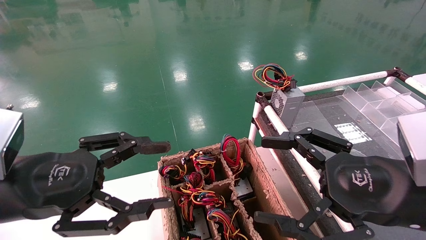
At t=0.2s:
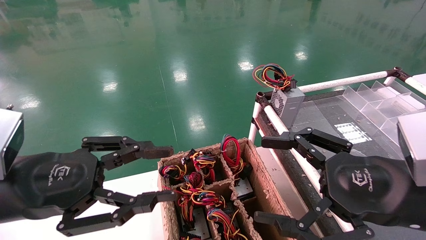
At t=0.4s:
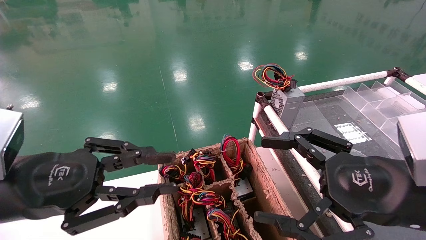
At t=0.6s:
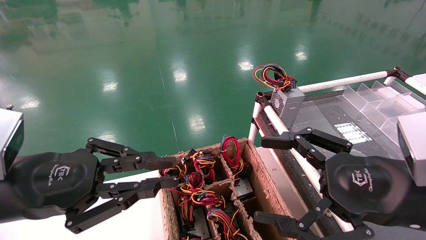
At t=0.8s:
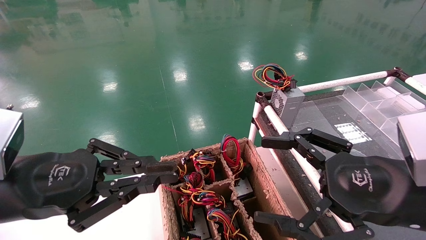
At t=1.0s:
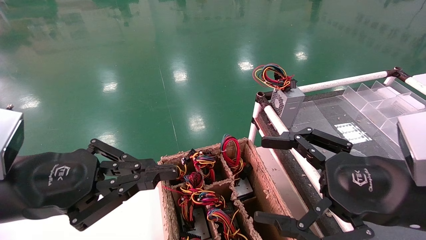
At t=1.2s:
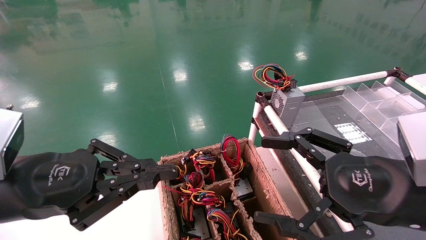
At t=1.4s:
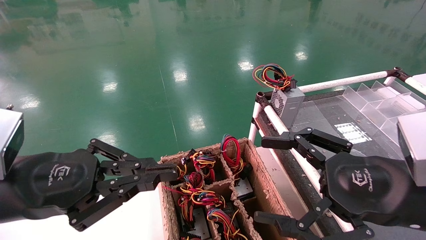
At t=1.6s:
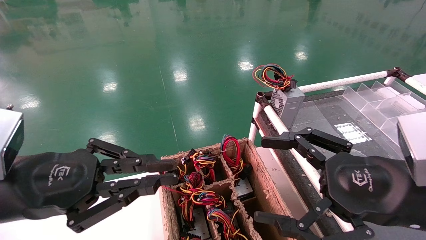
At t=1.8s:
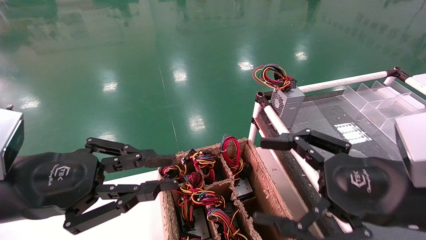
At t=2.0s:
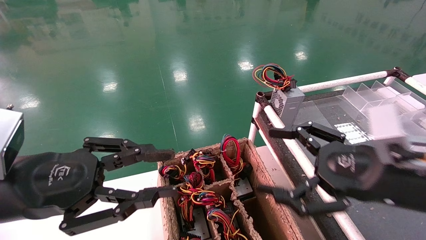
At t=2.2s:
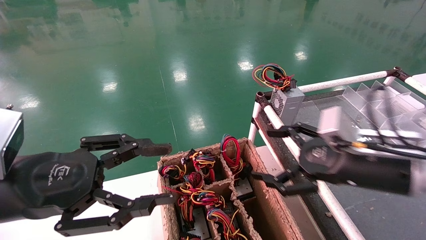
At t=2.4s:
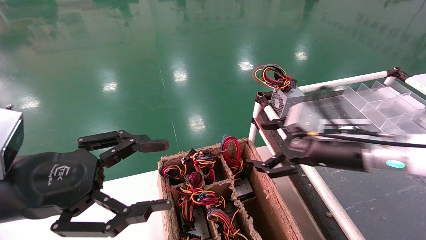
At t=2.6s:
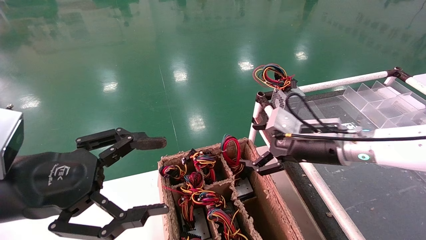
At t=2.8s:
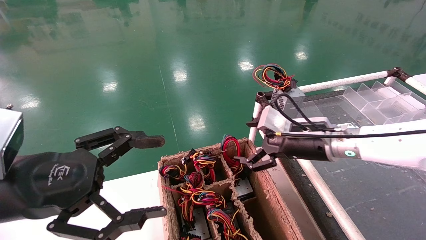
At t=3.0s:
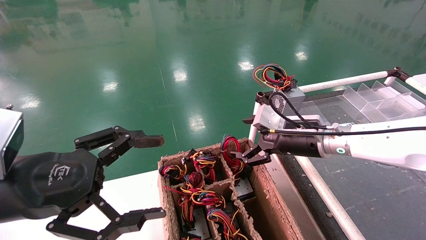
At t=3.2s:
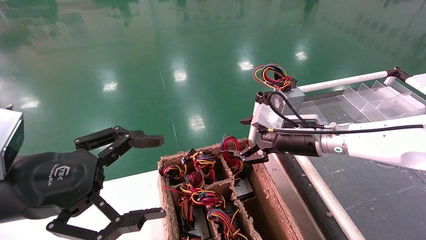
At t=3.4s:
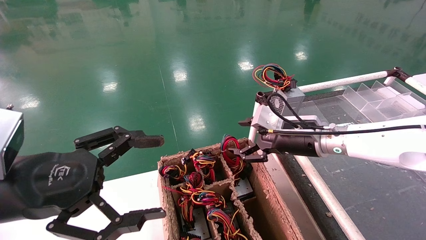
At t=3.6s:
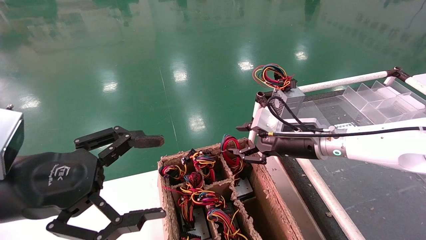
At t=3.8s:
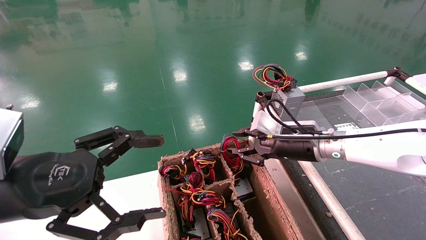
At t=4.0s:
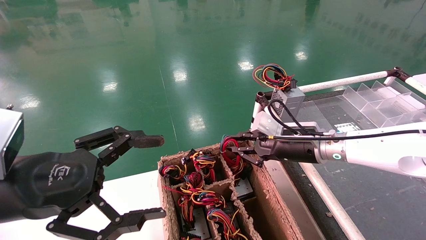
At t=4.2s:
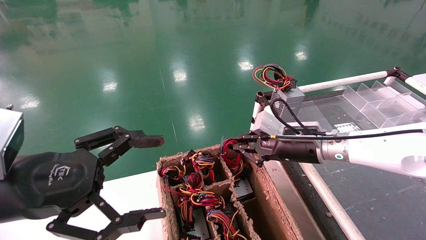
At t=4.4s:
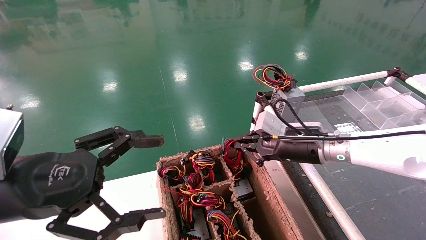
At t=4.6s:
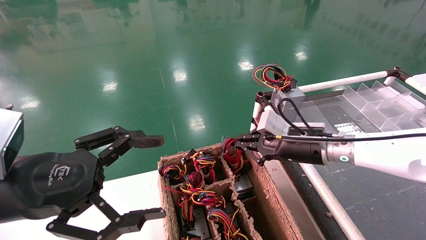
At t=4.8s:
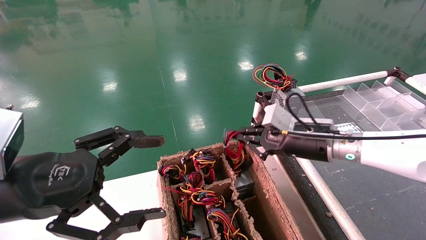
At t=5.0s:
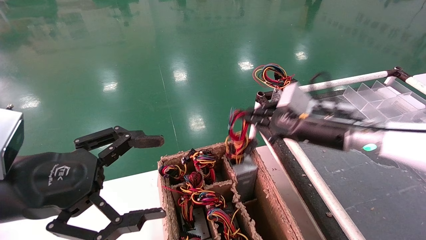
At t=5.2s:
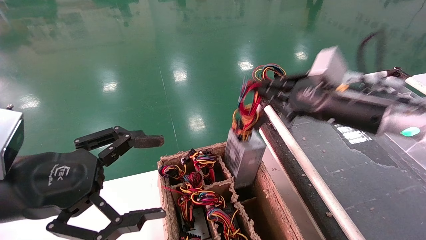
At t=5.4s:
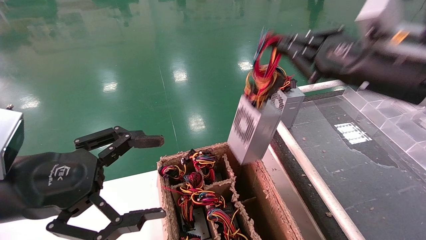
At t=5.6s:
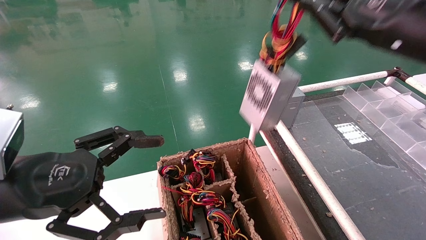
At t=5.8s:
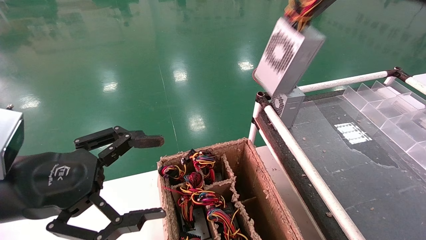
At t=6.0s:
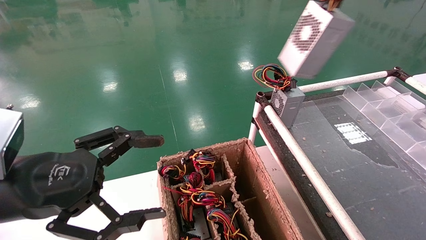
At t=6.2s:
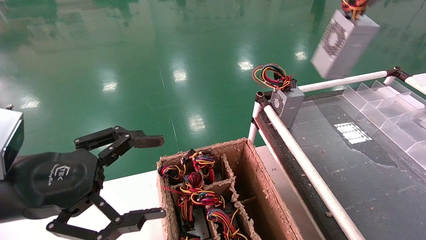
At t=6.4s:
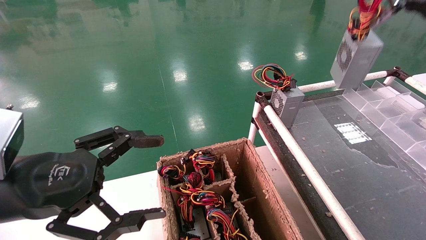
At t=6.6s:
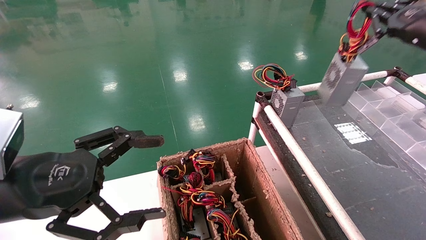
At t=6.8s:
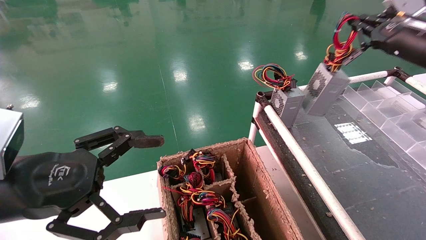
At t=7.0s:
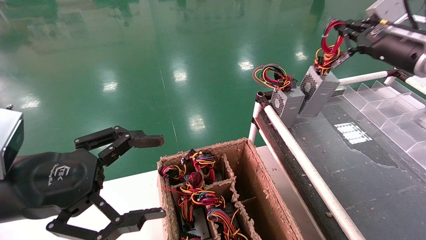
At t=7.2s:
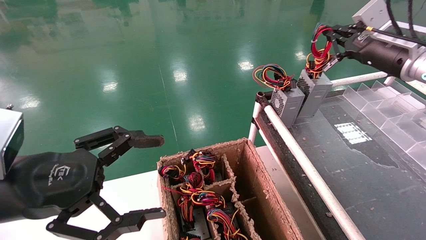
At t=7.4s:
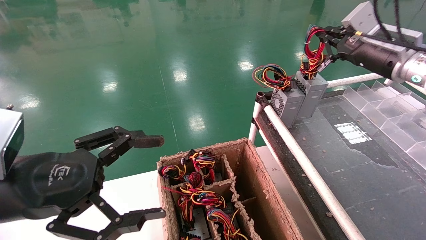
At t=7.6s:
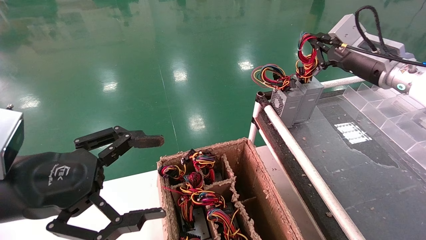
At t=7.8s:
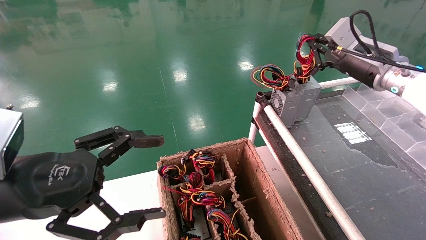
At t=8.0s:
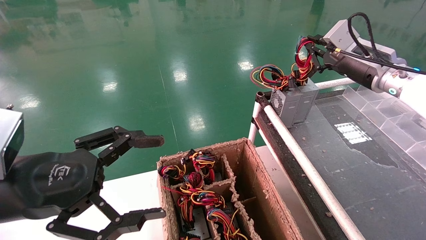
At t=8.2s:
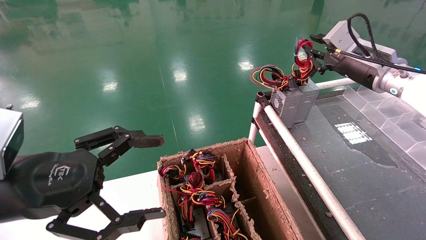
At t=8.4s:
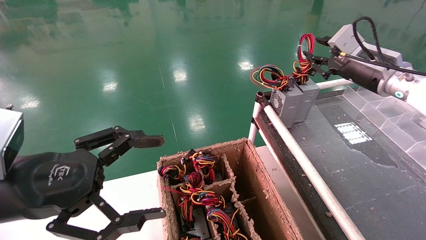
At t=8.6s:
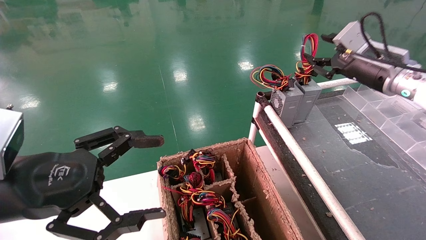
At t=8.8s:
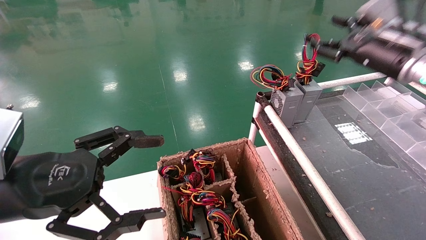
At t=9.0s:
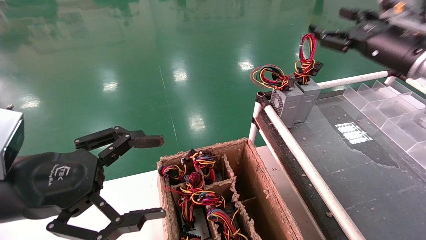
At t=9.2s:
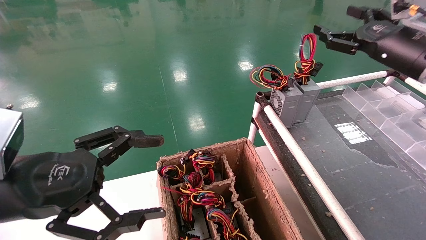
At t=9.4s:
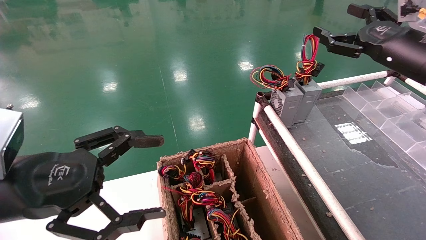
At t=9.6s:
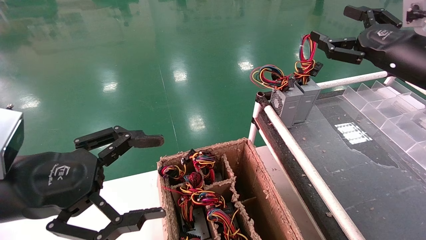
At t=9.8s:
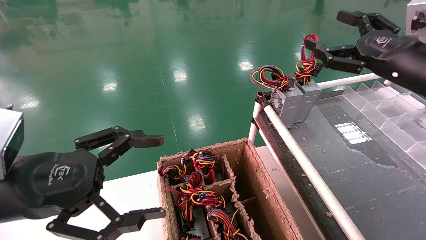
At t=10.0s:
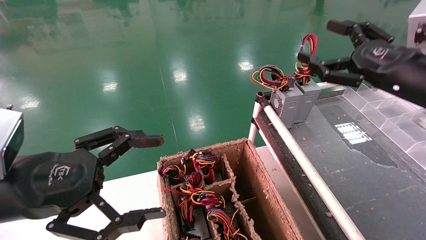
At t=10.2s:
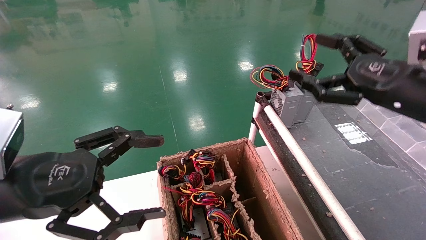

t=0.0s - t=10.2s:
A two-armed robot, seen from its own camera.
Step, t=1.0s - t=4.6s: Grab and lift the power supply from the large box.
Step, t=4.8s - t=8.0s: Place the power supply on the operating table.
t=0.0s - t=1.4s: The left gripper closes up.
t=1.4s - t=3.0s: The left gripper opens up. Meanwhile the right gripper heads forward, covering some 20 cm.
t=3.0s - t=4.4s: The right gripper closes up.
t=4.4s - t=5.8s: The right gripper goes some 30 cm upward, to the right and backward.
t=5.8s - t=7.2s: The right gripper moves forward and downward, about 15 cm.
t=7.2s - t=8.8s: The right gripper opens.
t=8.8s - t=10.2s: The right gripper goes approximately 10 cm backward, and opens.

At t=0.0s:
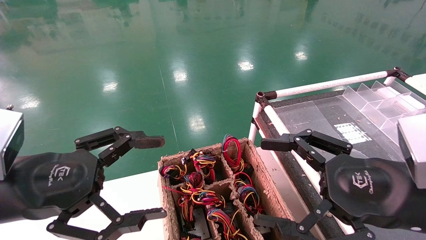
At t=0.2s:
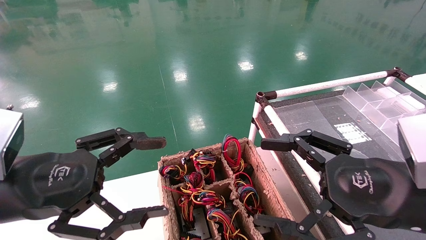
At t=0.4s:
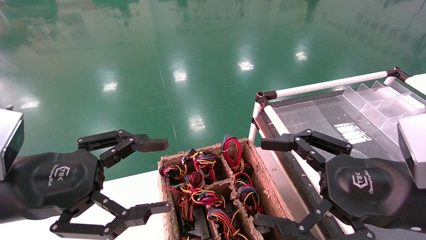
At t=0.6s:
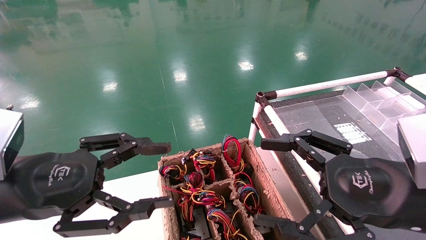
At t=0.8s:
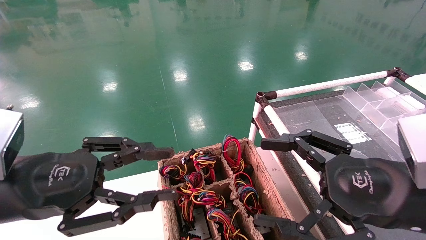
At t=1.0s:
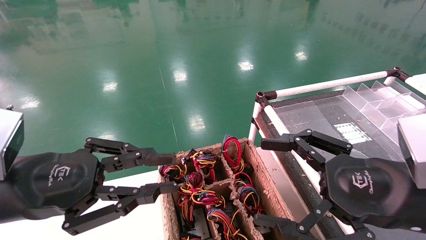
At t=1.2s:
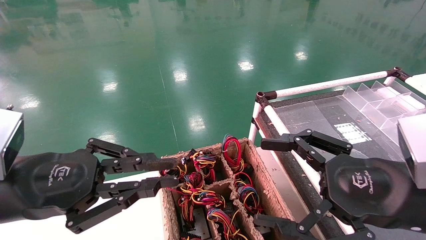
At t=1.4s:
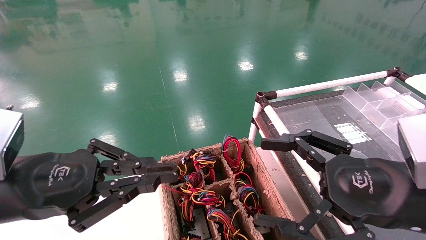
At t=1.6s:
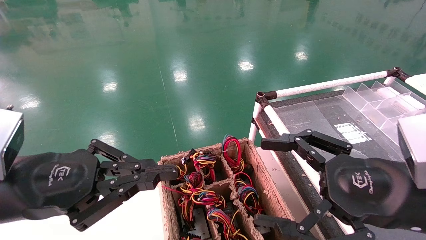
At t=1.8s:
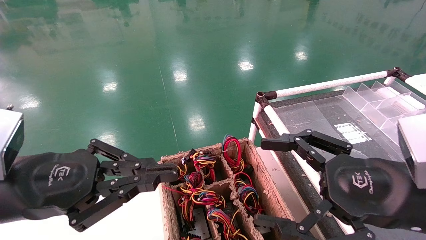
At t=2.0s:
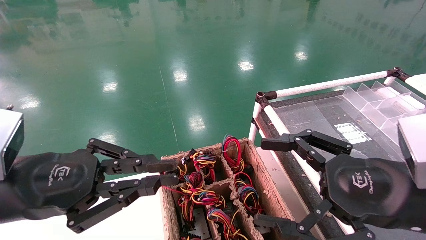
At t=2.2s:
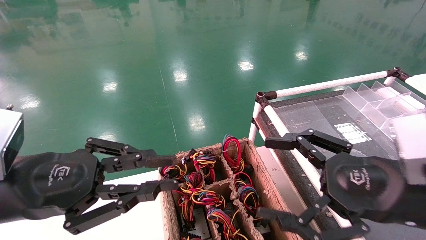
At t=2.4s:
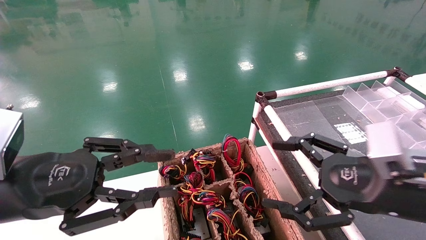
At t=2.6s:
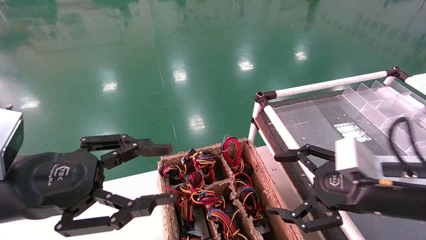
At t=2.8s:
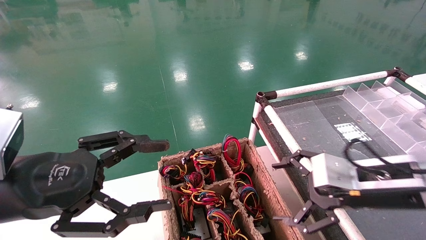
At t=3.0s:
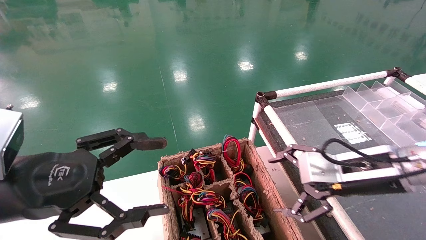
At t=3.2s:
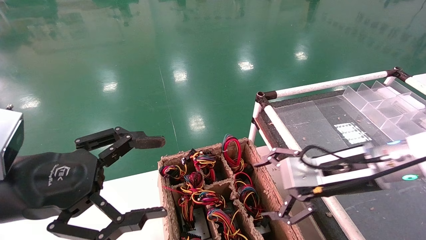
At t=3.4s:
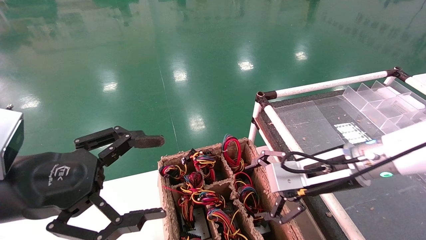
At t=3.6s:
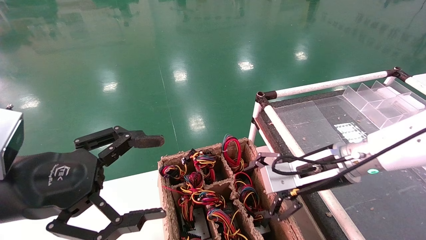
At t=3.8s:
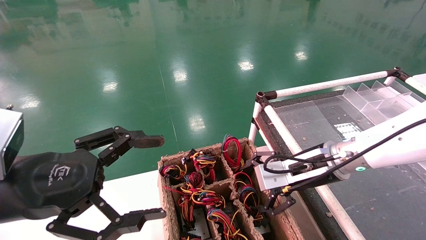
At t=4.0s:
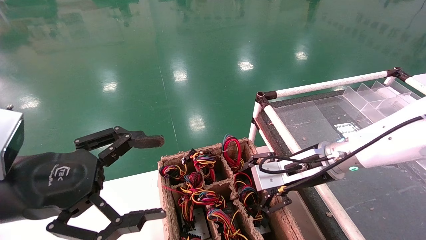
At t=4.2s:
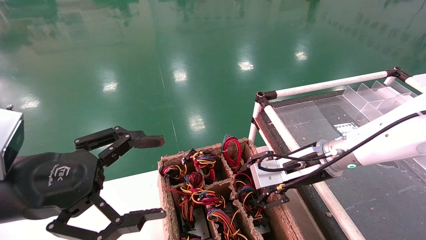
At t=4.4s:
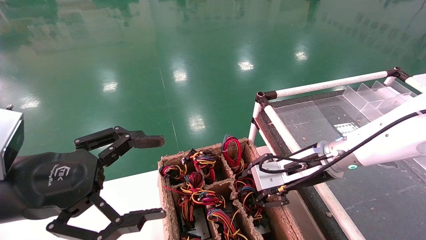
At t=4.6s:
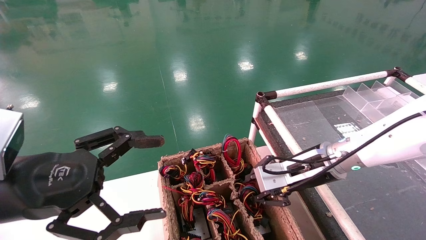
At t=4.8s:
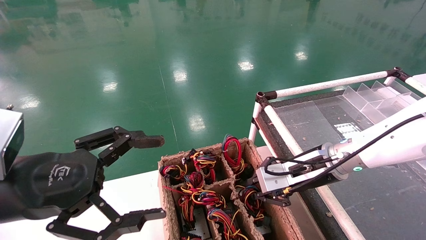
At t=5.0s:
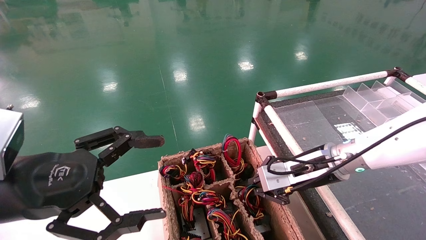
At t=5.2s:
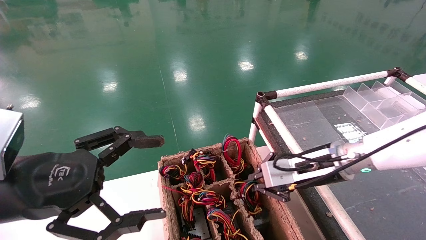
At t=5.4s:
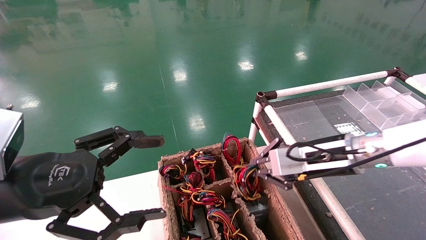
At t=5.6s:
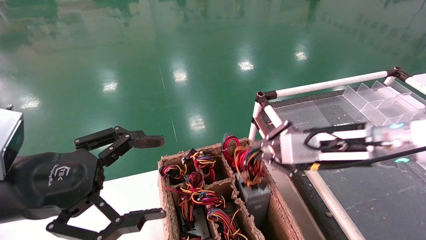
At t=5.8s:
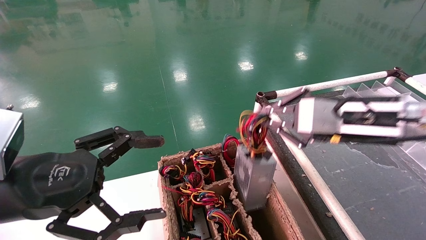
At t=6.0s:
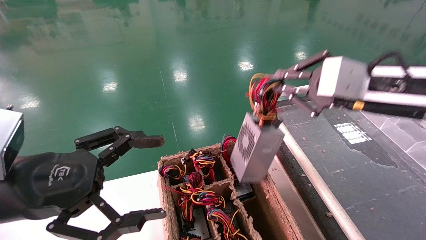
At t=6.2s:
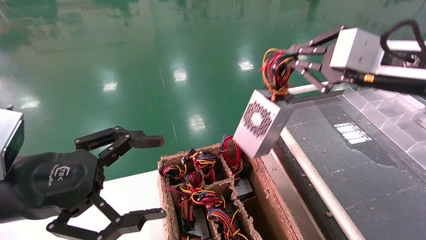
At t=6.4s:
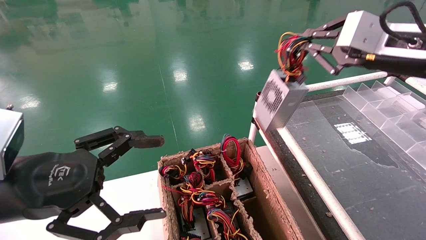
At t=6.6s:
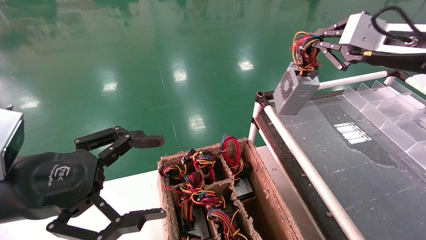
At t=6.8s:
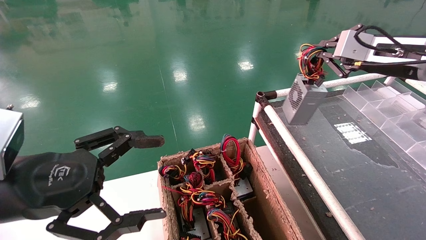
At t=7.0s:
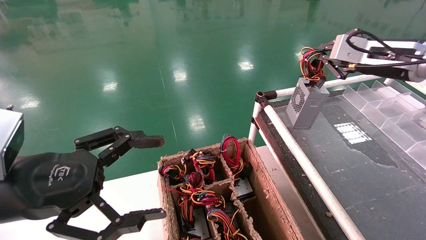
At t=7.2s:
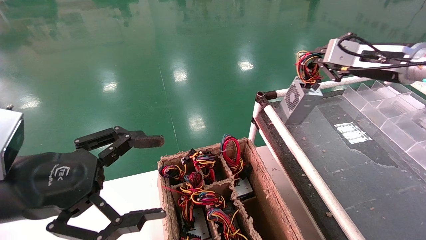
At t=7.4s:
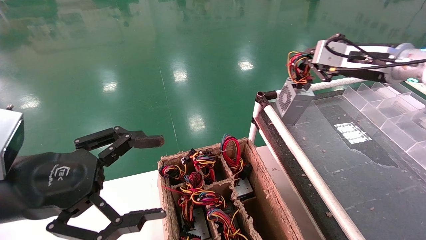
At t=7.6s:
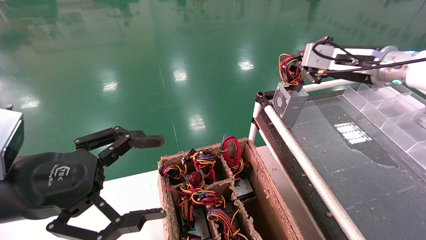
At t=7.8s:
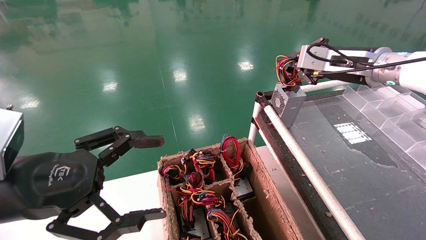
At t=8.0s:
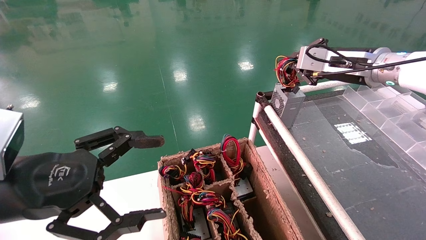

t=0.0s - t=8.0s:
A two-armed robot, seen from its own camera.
Step, t=1.6s - t=5.2s: Grab and lift the power supply from the large box.
t=0.0s - t=1.6s: The left gripper closes up.
t=1.6s - t=3.2s: The left gripper opens its fingers. Meanwhile the right gripper travels forward by about 10 cm.
t=3.2s - t=4.8s: The right gripper is displaced forward by roughly 5 cm, and closes.
t=4.8s - t=6.4s: The right gripper travels upward and to the right by some 20 cm.
t=6.4s - t=8.0s: The right gripper is displaced forward by about 10 cm.
